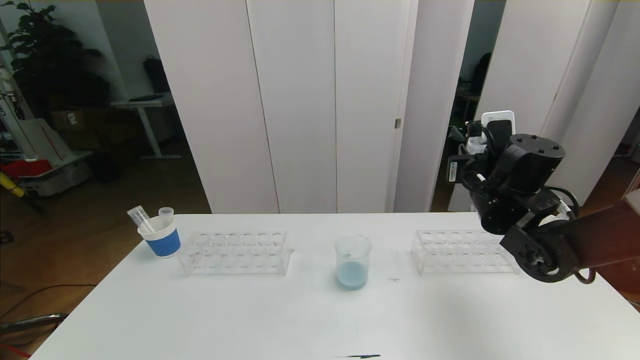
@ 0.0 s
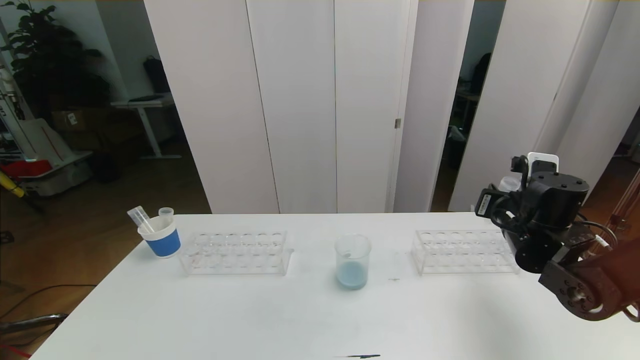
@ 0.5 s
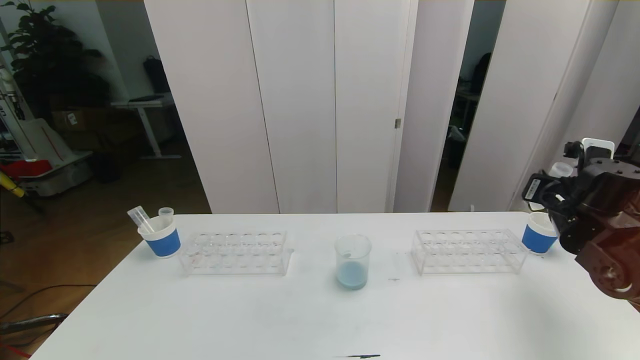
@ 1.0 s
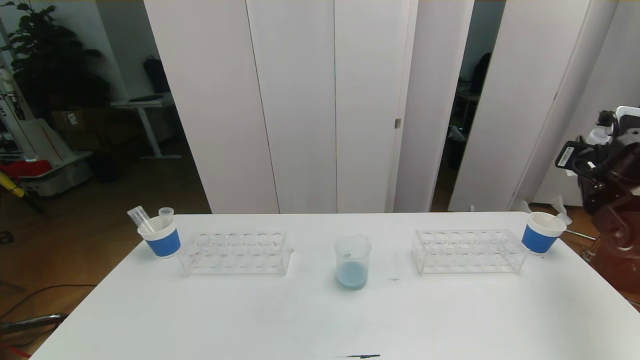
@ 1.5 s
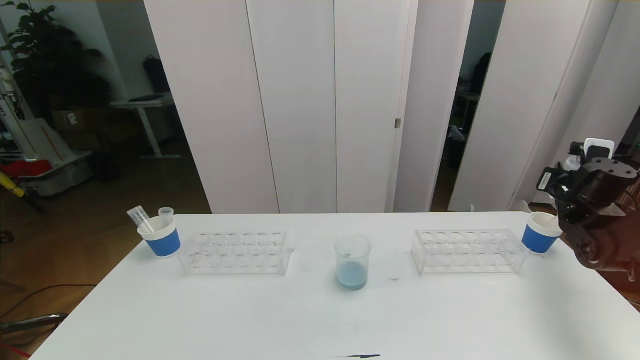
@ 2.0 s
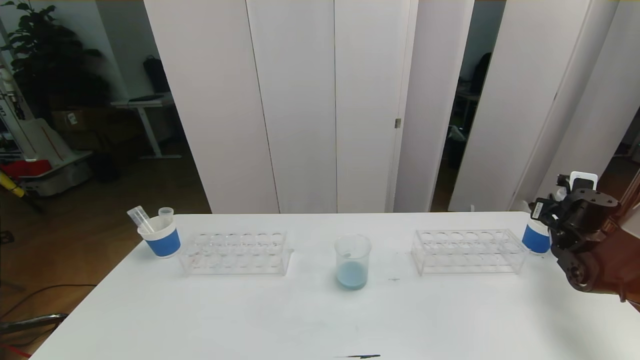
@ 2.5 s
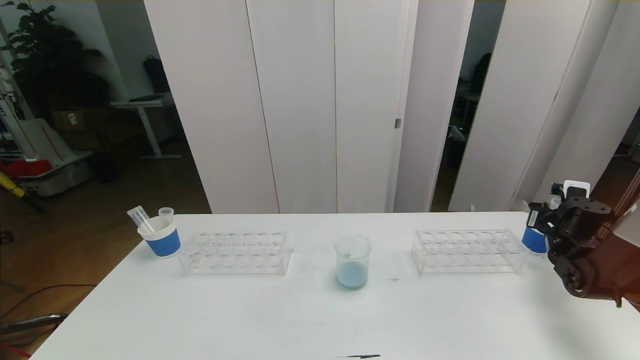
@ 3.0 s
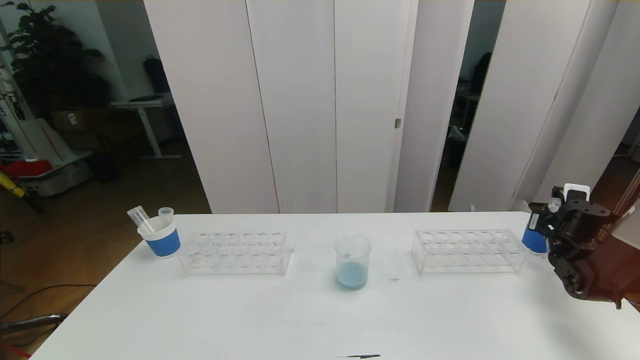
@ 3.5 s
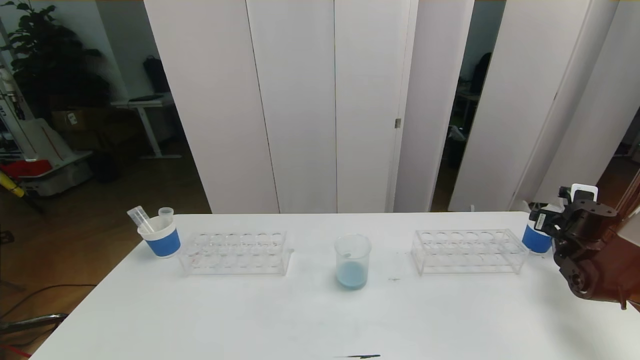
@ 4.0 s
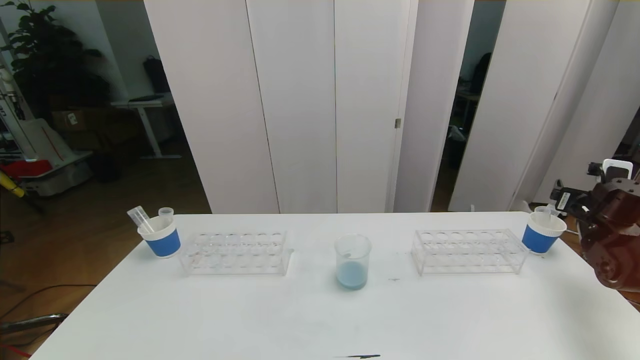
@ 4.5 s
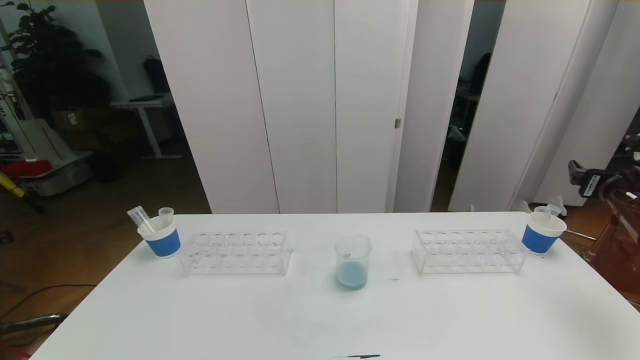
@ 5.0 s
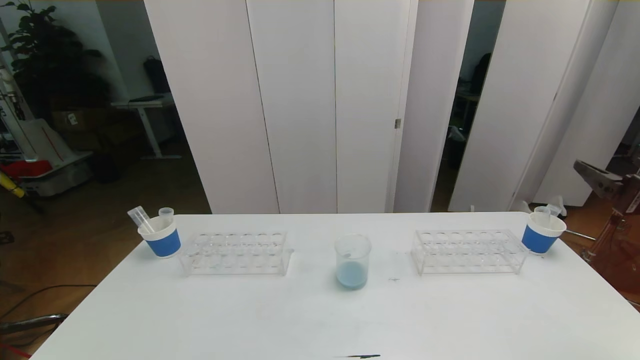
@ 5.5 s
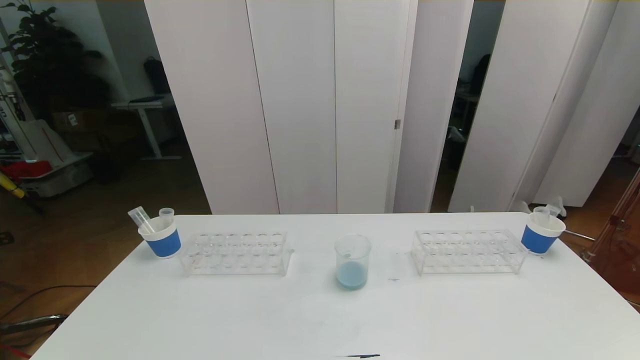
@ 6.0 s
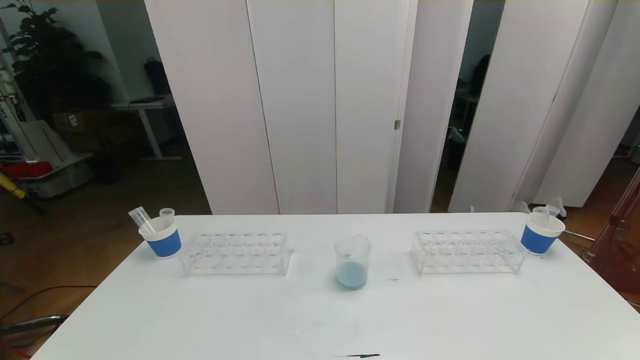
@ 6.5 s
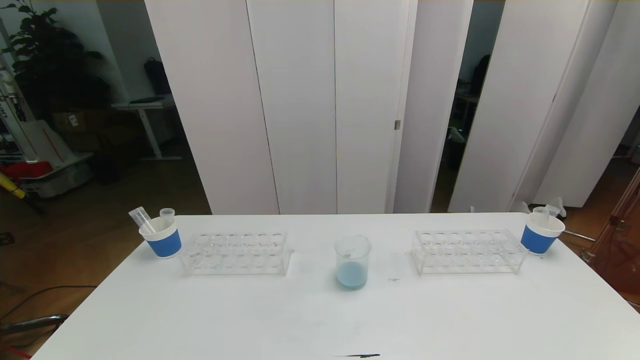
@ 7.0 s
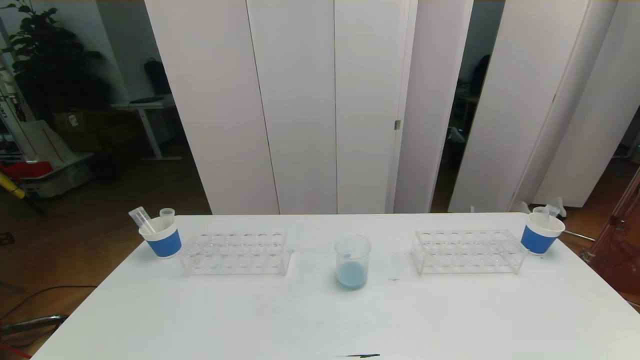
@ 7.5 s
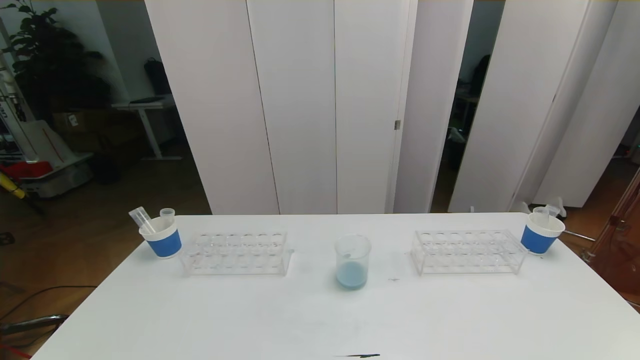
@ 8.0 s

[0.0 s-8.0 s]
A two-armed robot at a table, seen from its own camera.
Task of the whole recording: pick up the test tube with red pigment the test tube with blue pigment and the test tube with white pigment by grippers and pour them into the beaker.
0.0 to 2.0 s: The right gripper heads to the right, covering roughly 20 cm.
2.0 to 4.0 s: The right gripper travels downward by some 10 cm, and opens its fingers.
4.0 to 6.0 s: The right gripper shifts some 40 cm backward and upward.
